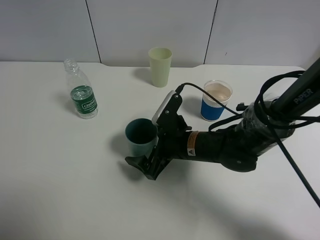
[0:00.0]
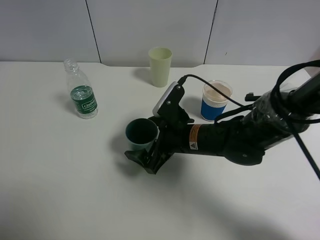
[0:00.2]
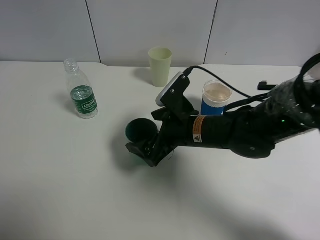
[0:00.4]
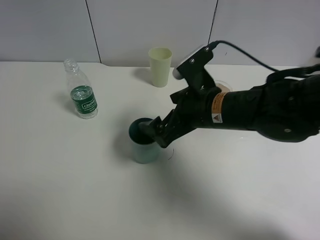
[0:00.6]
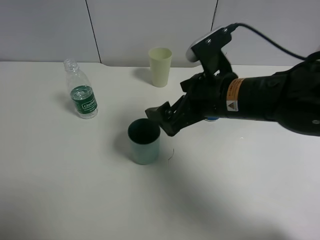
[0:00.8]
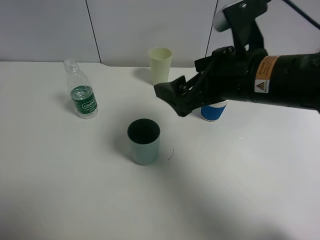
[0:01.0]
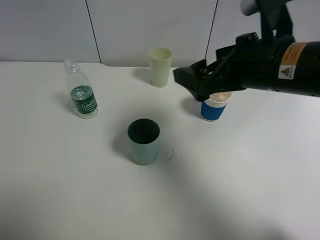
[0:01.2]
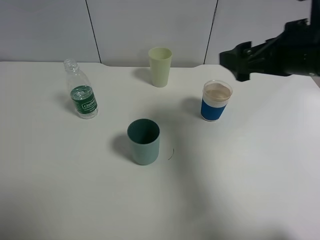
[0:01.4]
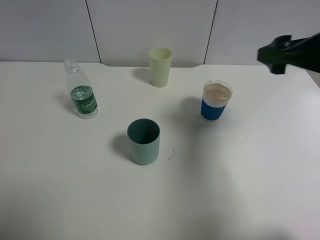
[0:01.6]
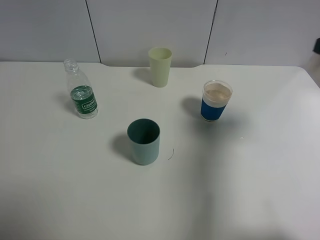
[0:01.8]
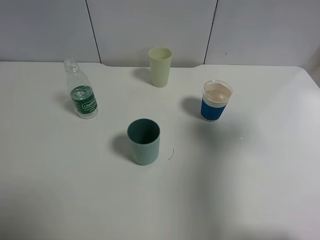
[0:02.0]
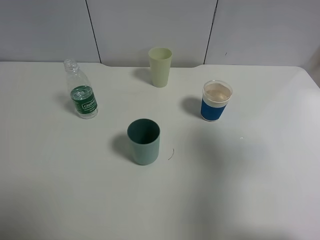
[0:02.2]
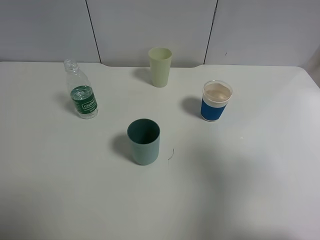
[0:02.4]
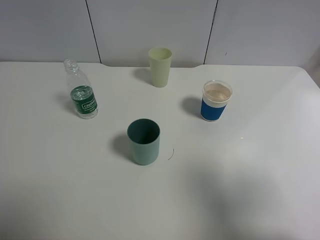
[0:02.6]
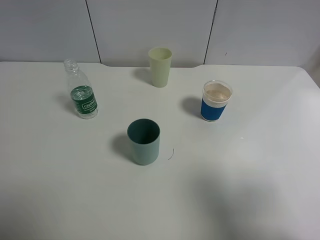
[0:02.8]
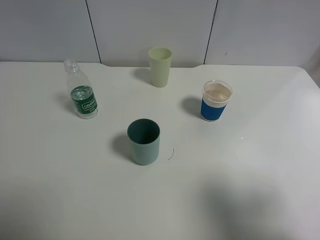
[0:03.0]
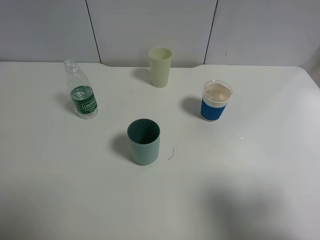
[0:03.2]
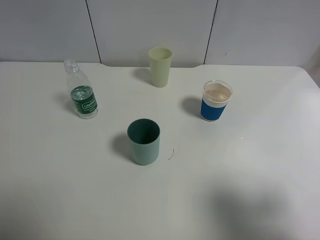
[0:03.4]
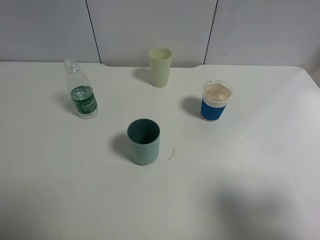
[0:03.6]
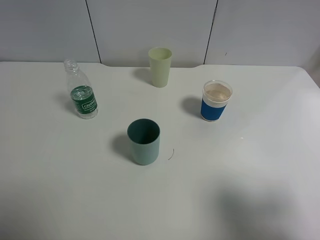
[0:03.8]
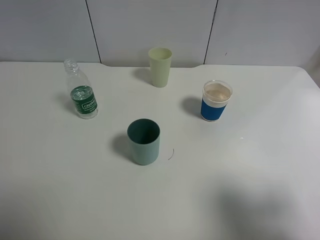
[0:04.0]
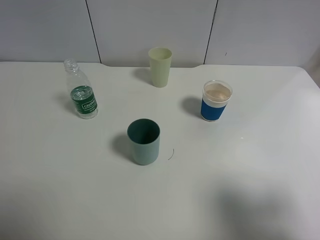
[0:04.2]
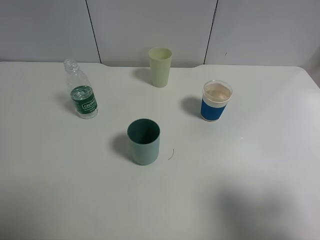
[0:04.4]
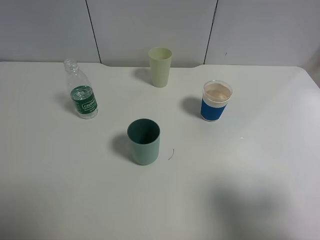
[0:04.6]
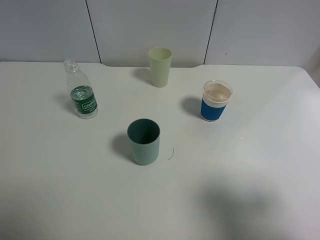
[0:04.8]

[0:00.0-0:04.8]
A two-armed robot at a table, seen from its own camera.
Task of the whole recording: use a clamp to hold the bottle of the drink, pour the beverage into a random cup, then clamp the cup containing the drink and pour the drink into another random cup.
0:00.0 to 0:01.6: The right gripper goes about 30 cm upward and to the right.
0:01.6 to 0:03.2: The right gripper moves backward, roughly 25 cm.
